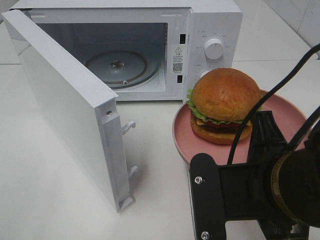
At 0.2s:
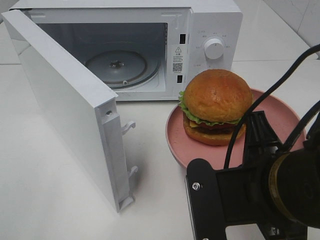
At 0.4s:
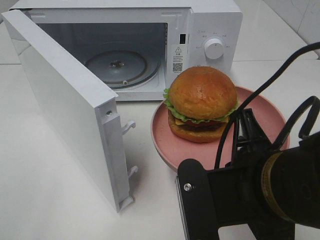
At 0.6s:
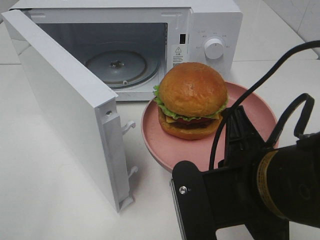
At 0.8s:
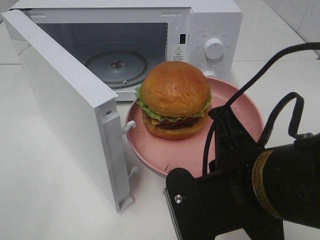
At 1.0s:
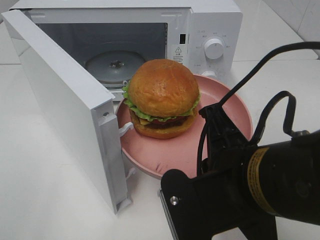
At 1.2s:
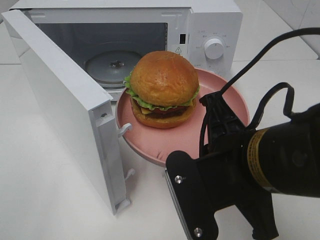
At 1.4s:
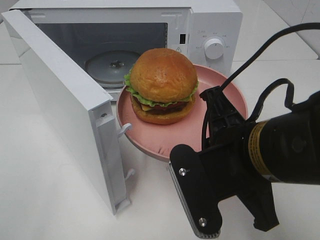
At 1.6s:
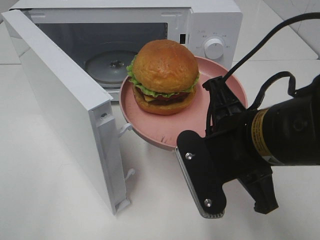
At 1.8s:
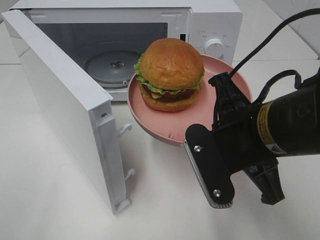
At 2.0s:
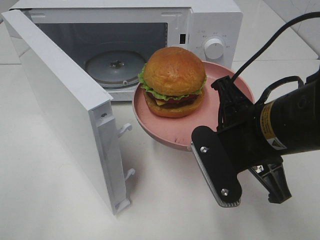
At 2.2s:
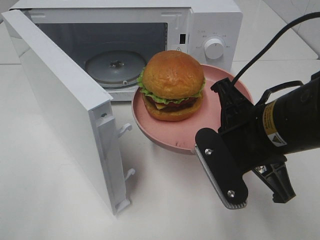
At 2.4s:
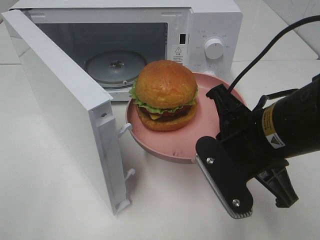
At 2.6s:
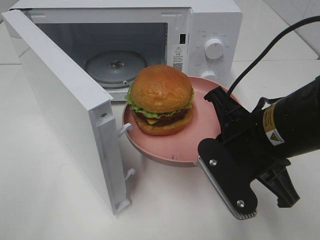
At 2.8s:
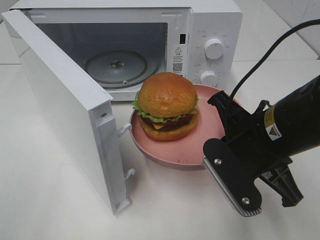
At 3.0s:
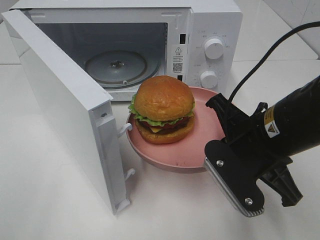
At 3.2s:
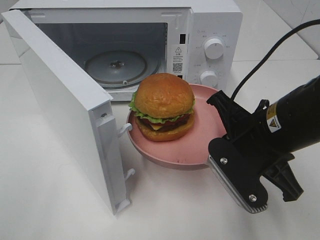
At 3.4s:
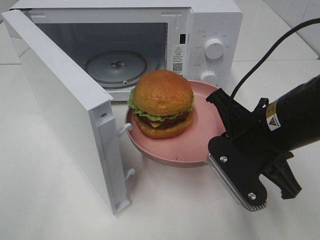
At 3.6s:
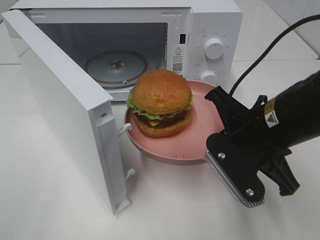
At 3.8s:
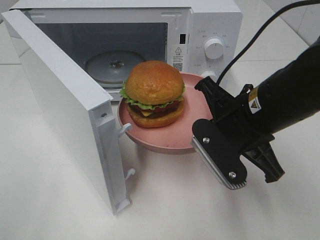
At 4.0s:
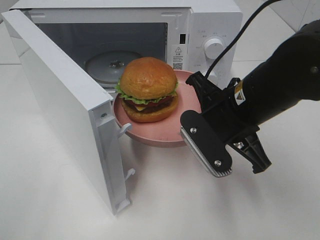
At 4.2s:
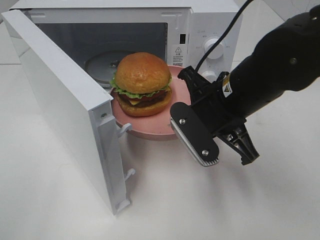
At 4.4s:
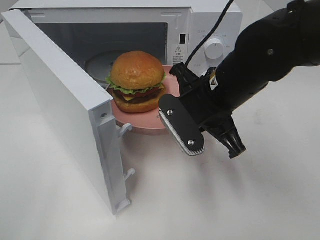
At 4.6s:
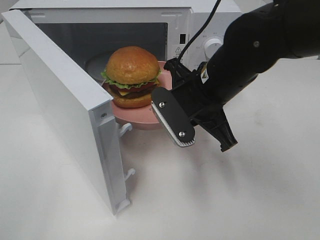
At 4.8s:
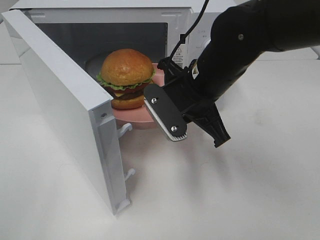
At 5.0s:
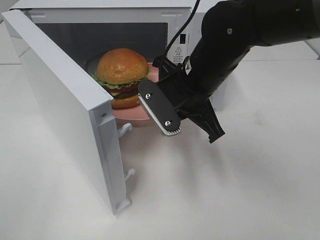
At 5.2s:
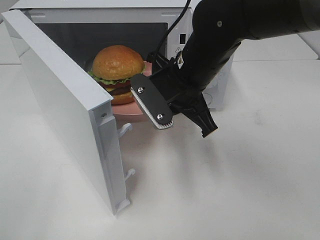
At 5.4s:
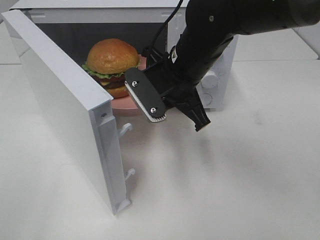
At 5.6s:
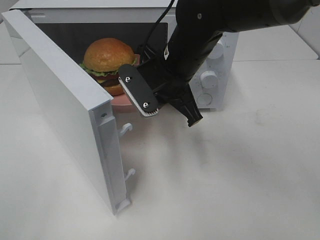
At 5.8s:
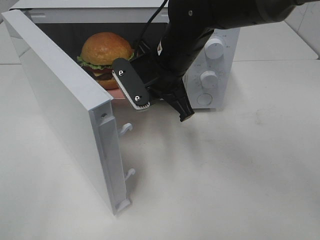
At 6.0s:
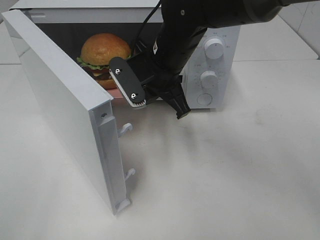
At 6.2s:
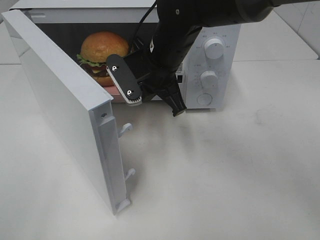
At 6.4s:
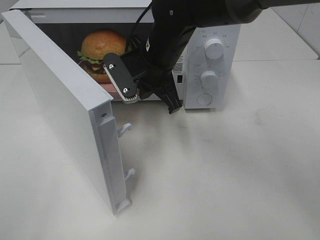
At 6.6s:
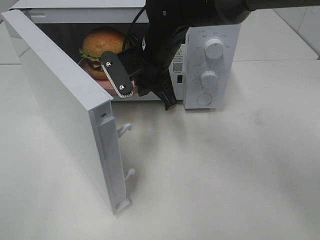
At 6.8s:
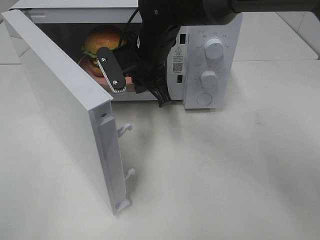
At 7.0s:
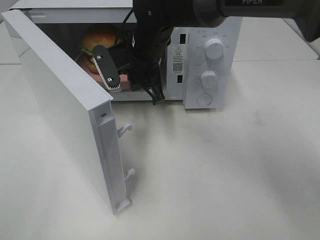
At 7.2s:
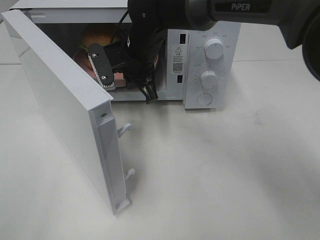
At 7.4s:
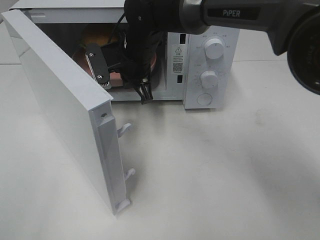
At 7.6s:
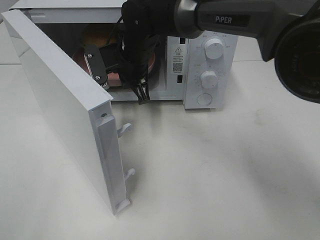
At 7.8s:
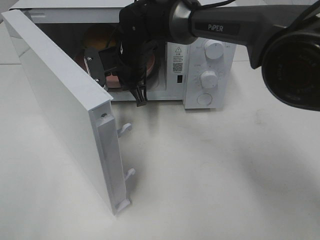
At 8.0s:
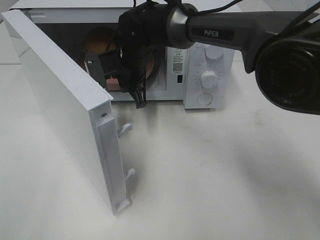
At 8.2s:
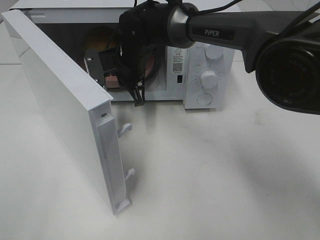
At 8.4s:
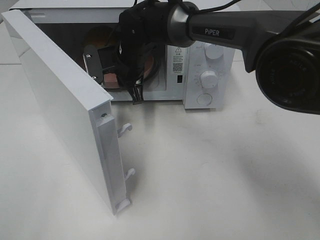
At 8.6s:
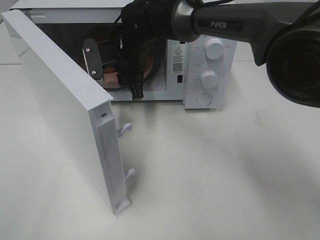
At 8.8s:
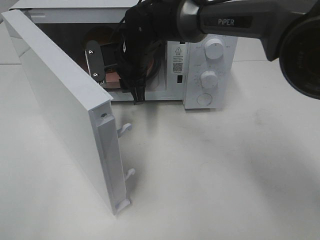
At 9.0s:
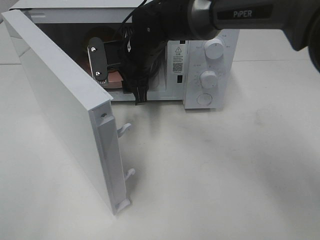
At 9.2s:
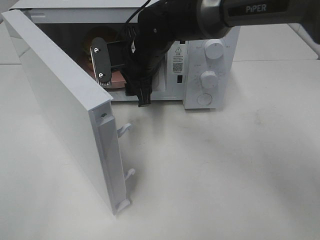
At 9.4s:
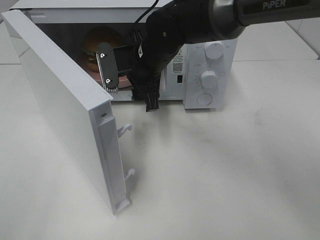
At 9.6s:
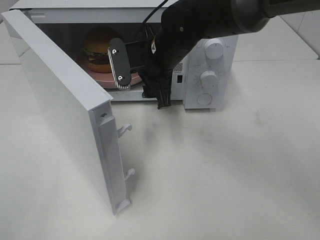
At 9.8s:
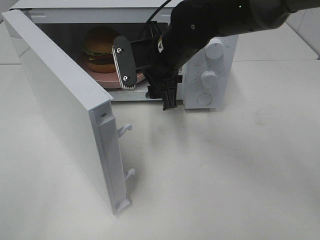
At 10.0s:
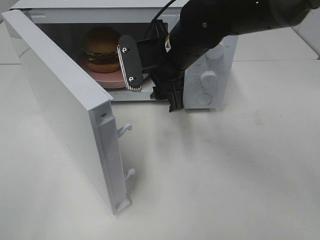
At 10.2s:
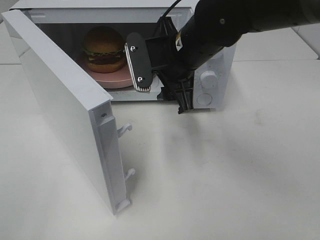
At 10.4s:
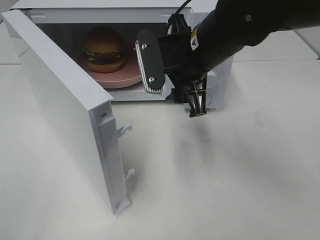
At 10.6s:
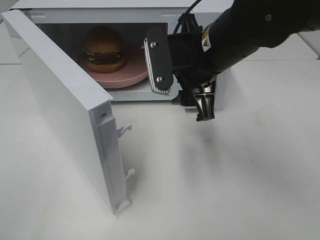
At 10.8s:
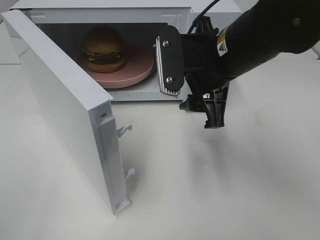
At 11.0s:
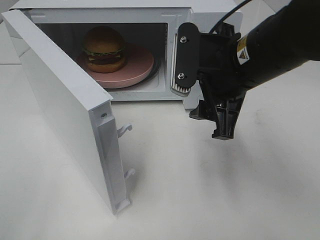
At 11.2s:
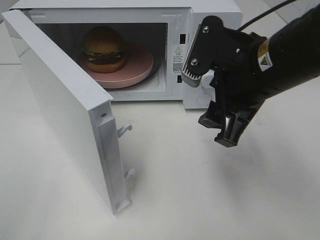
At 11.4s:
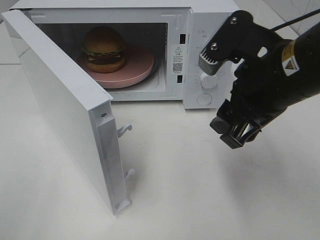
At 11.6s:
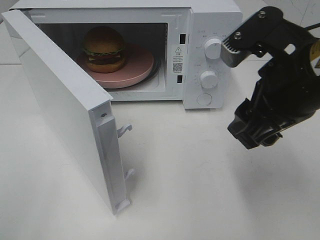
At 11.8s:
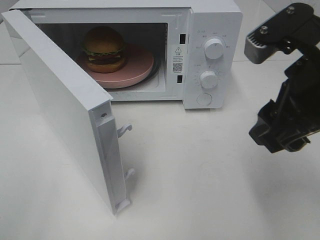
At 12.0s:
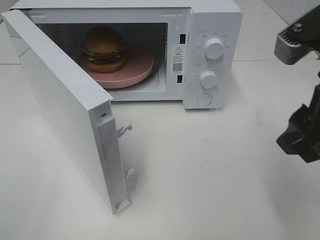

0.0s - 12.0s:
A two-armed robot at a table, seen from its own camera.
Task of the whole recording: Heat the burger.
Step, 0.0s - 8.6s: Right hand: place the plate in the microwave.
0.0s - 1.6s: The right gripper is displaced forward by about 5 cm.
1.6s - 3.0s: The right gripper shifts by about 5 cm.
3.0s - 4.4s: The right gripper goes approximately 5 cm forward.
4.4s - 6.0s: The right gripper is displaced forward and to the left by approximately 10 cm.
6.0s - 7.6s: The right gripper is displaced forward and to the left by some 10 cm.
7.6s - 9.0s: The right gripper opens up.
9.0s - 10.4s: The right gripper is displaced backward, to the right and upward by approximately 15 cm.
10.4s - 12.0s: The right gripper shifts approximately 20 cm backward and to the right.

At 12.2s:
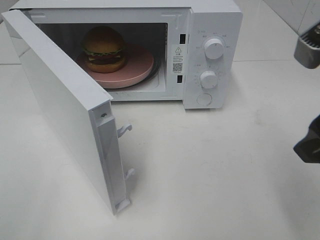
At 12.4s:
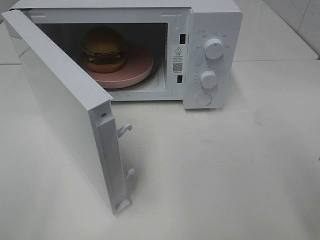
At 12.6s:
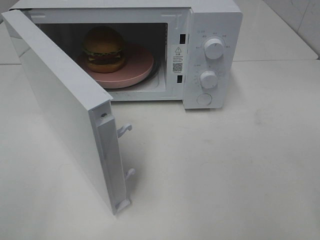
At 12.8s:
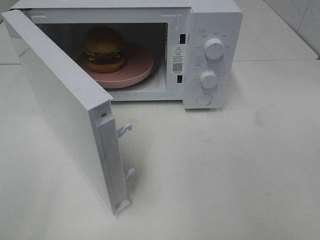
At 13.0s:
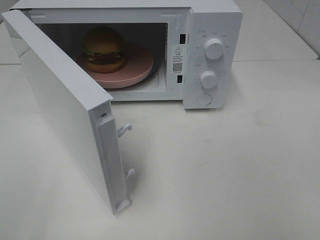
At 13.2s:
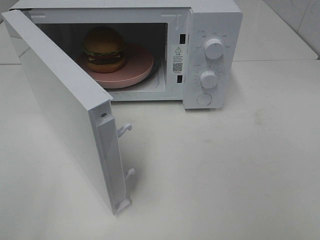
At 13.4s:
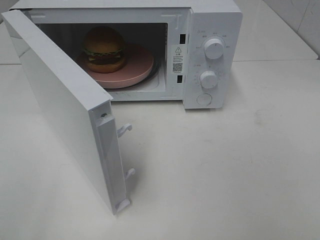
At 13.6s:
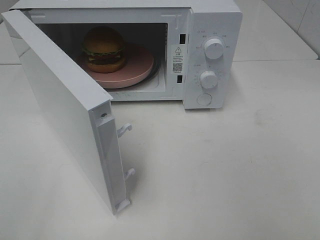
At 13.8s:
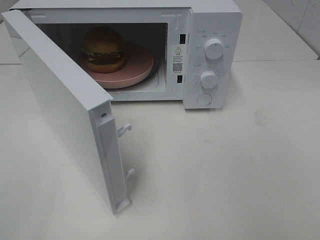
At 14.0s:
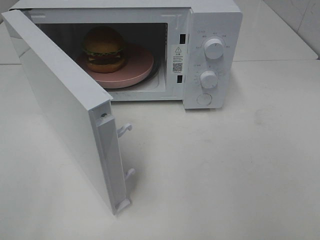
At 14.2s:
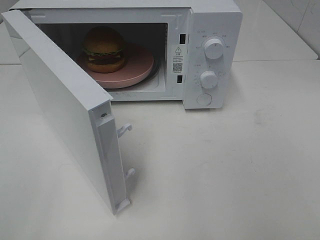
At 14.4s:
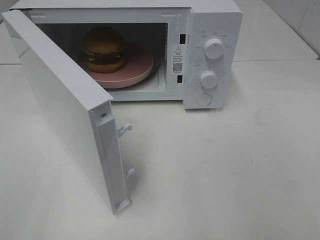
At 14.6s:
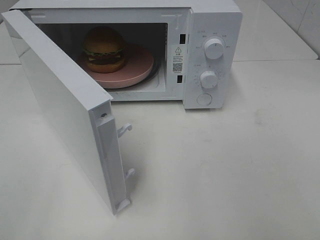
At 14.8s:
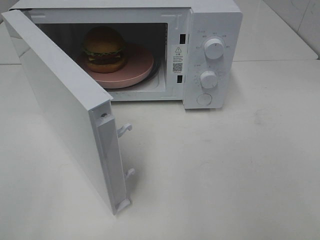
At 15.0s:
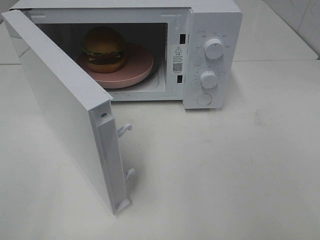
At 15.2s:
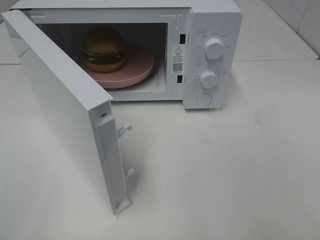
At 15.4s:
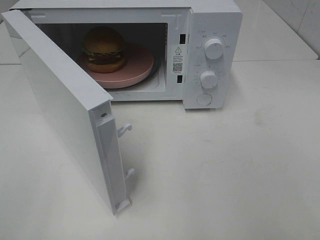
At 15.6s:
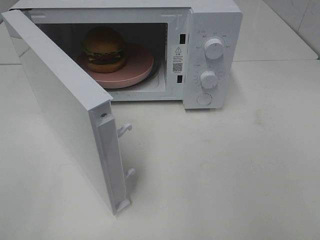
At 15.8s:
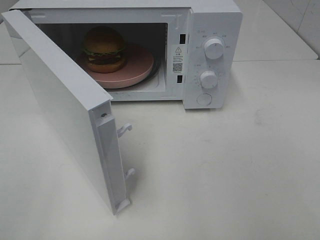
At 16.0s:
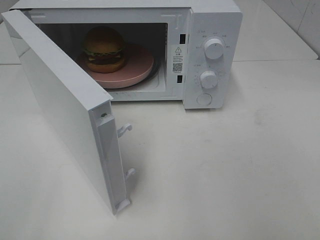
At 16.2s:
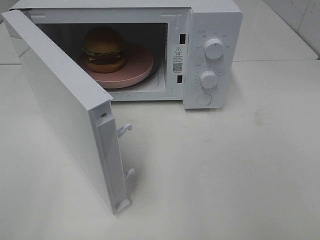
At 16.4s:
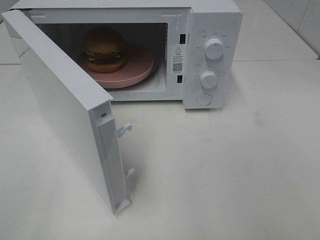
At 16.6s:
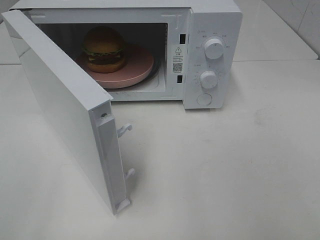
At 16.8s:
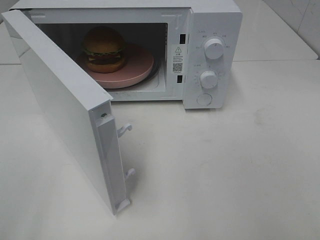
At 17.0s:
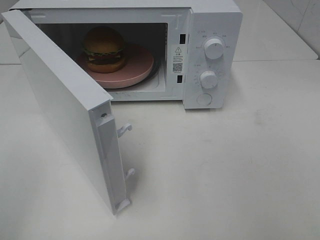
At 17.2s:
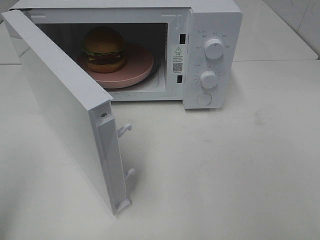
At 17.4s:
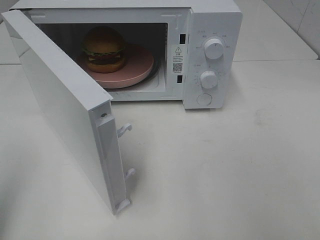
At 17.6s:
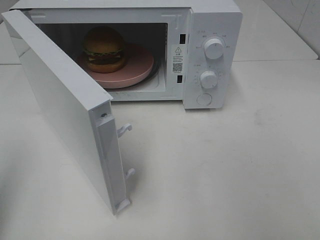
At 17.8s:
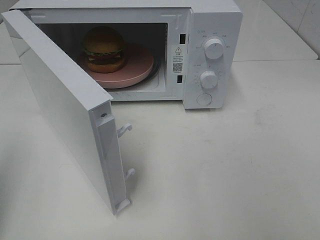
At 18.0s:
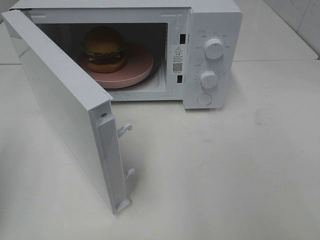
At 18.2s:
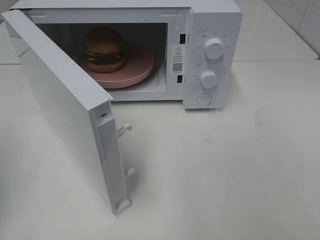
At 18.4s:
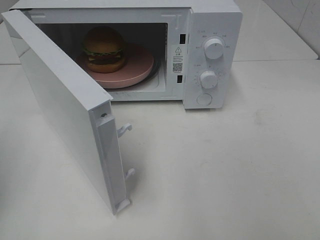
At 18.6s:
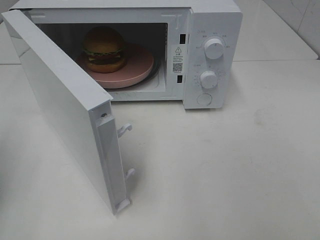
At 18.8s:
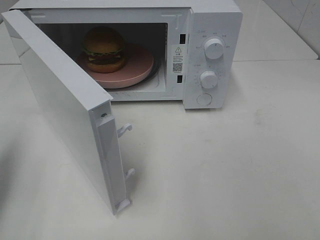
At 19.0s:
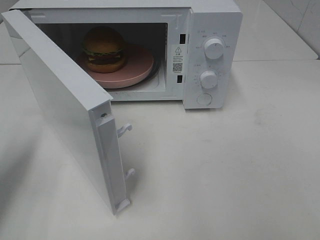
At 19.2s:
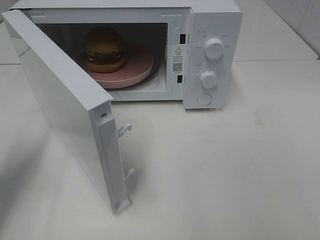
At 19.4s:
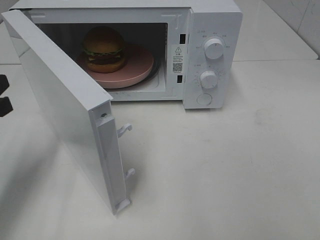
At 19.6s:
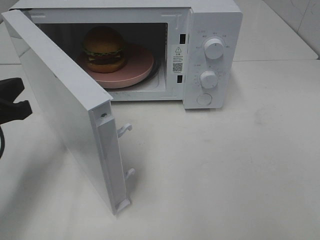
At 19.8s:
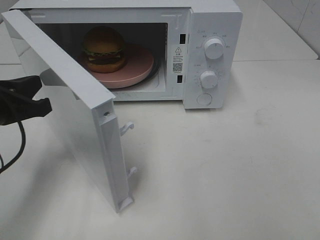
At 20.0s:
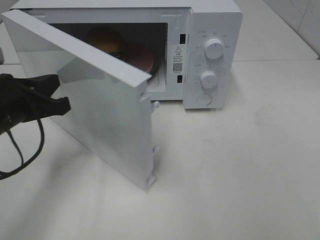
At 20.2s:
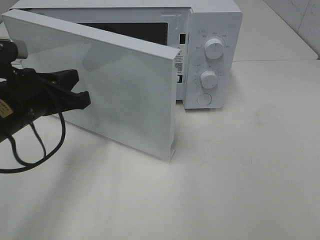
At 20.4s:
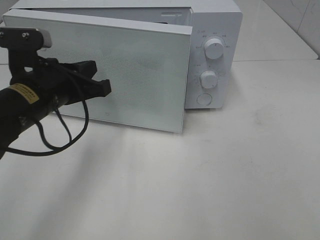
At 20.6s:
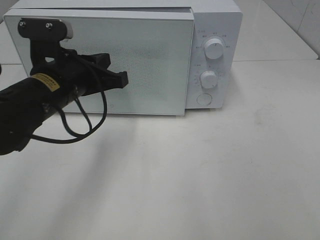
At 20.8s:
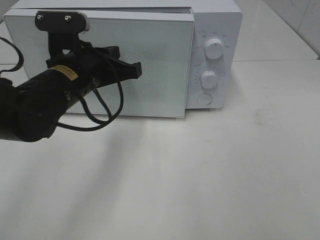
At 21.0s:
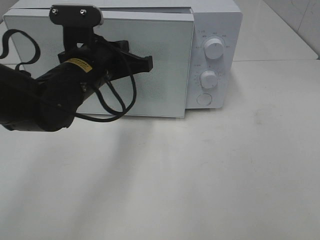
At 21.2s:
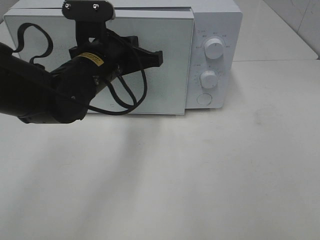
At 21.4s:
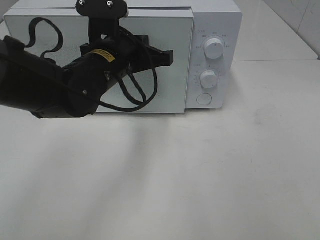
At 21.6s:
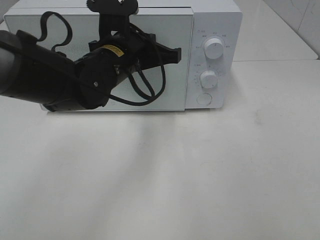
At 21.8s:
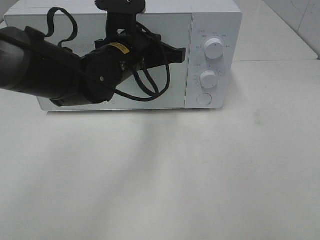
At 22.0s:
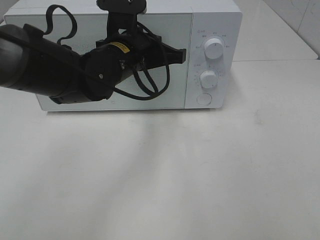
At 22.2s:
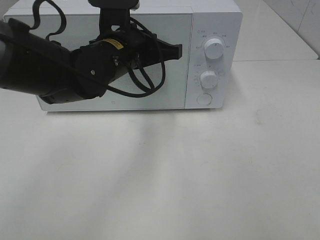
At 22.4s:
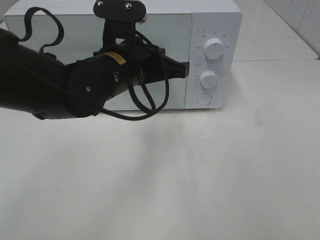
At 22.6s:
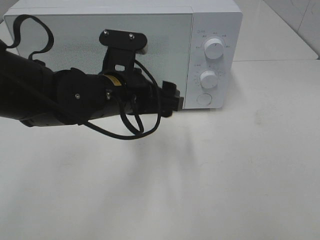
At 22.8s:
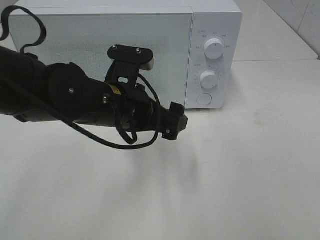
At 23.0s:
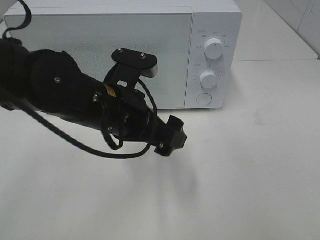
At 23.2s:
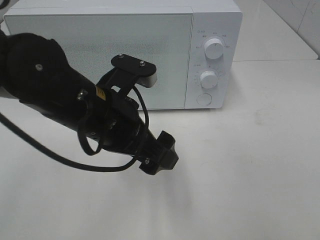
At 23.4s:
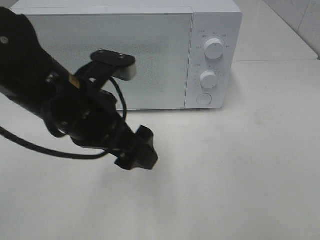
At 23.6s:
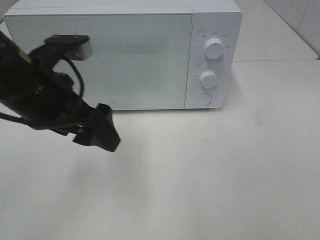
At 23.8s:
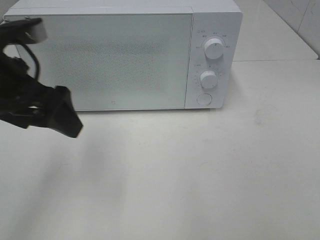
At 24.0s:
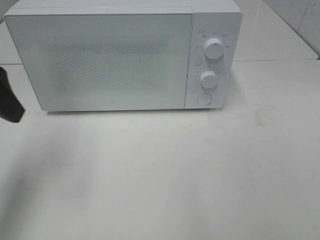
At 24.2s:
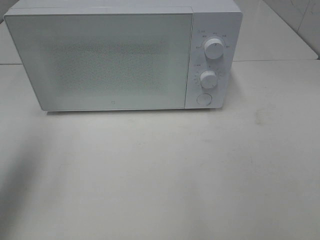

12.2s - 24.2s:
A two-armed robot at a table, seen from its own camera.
Task of the whole recording: Heat the burger.
Step, 12.2s - 22.6s: Left hand: close the microwave door.
12.2s - 13.8s: The right gripper travels backward and to the right by some 15 cm.
15.2s - 16.6s: Both grippers stay about where they are.
18.2s - 19.8s: The left gripper goes some 15 cm to the right, forward and downward.
19.8s - 21.2s: The left gripper shifts some 20 cm to the right and forward.
21.2s - 22.6s: The left gripper shifts by roughly 5 cm, and opens its fingers.
22.6s - 24.2s: The left gripper shifts roughly 30 cm to the left and upward.
